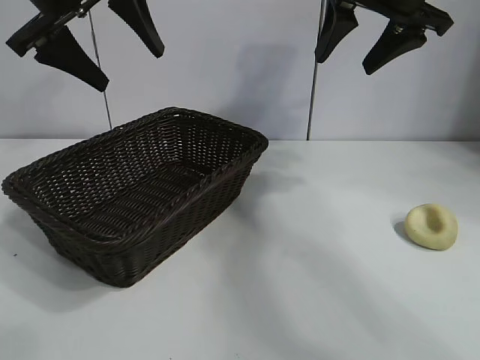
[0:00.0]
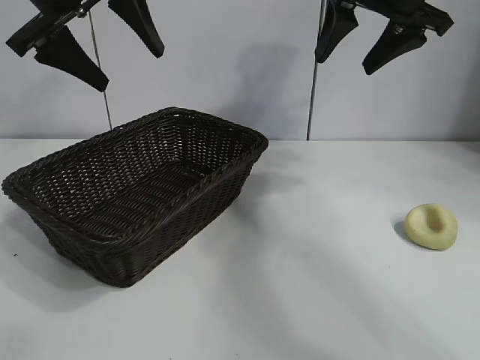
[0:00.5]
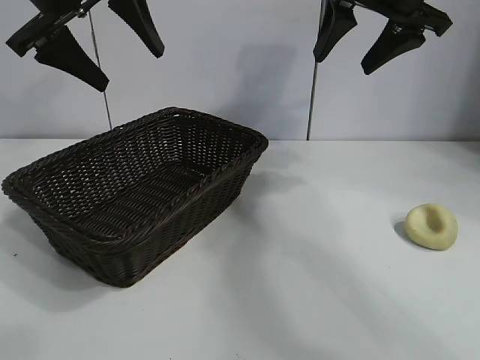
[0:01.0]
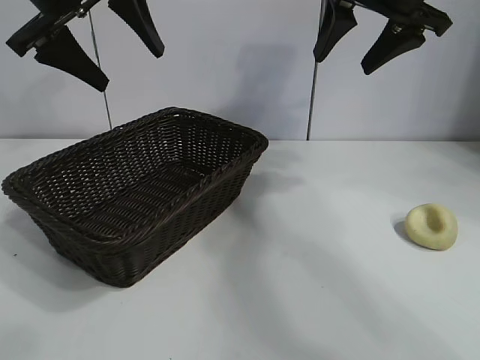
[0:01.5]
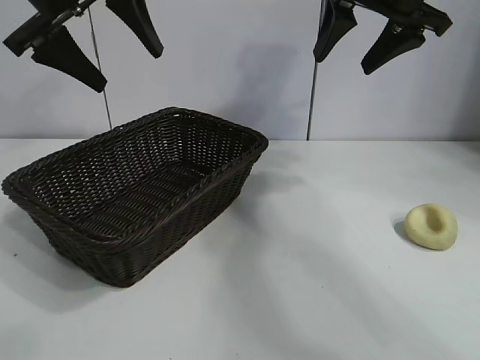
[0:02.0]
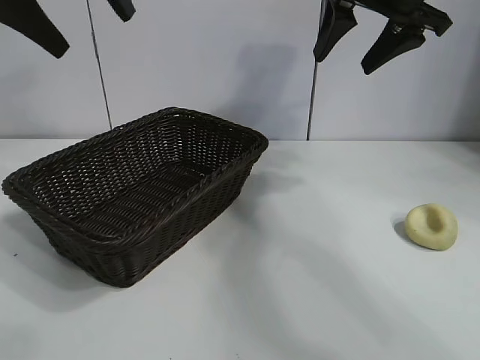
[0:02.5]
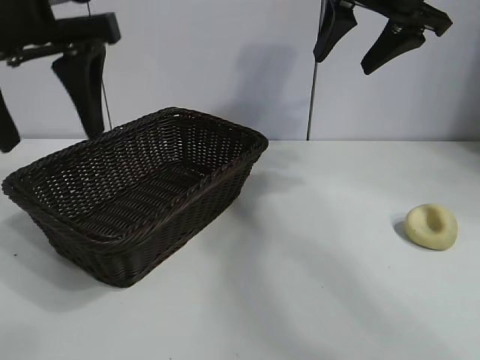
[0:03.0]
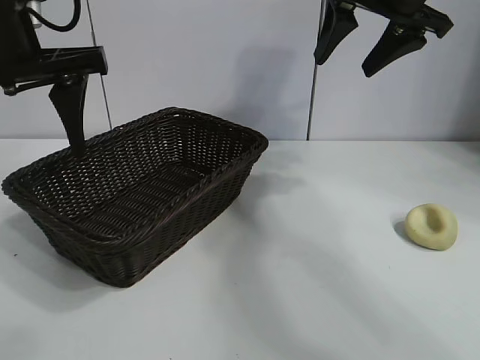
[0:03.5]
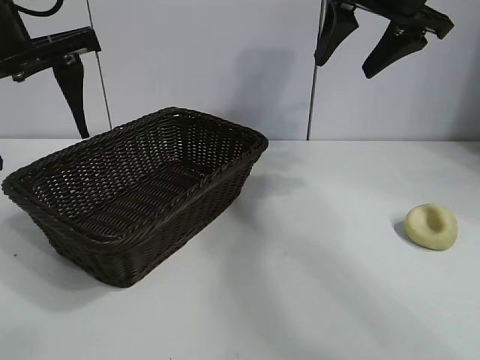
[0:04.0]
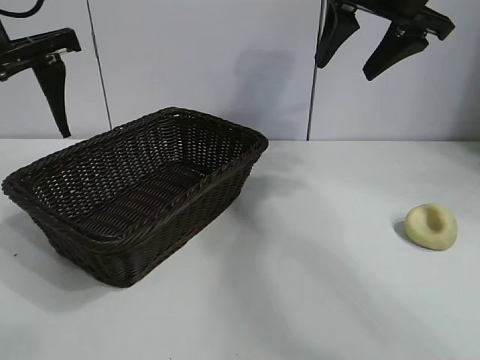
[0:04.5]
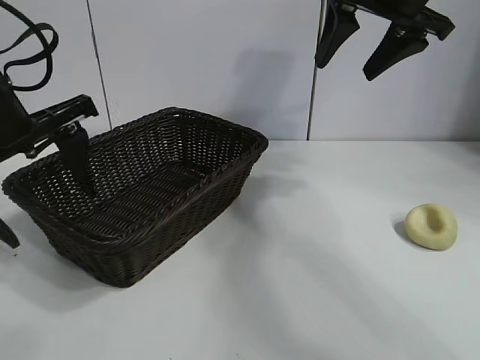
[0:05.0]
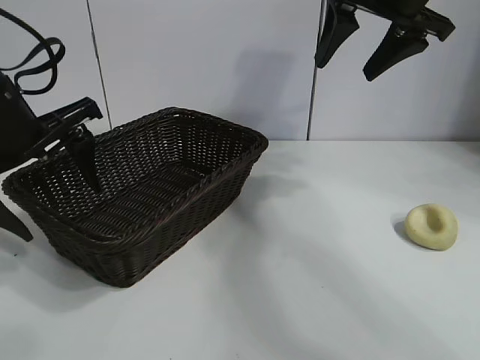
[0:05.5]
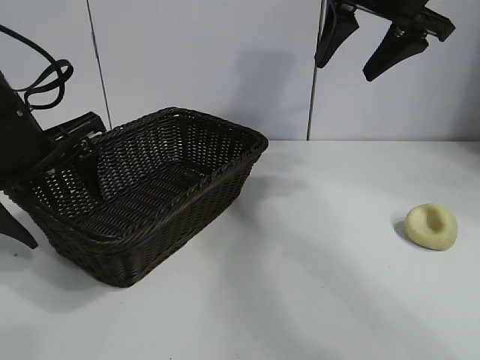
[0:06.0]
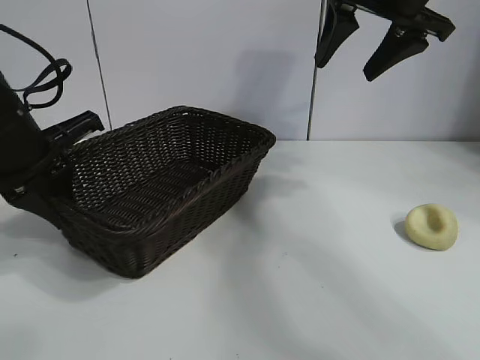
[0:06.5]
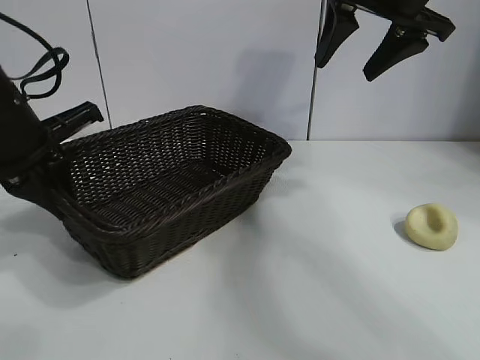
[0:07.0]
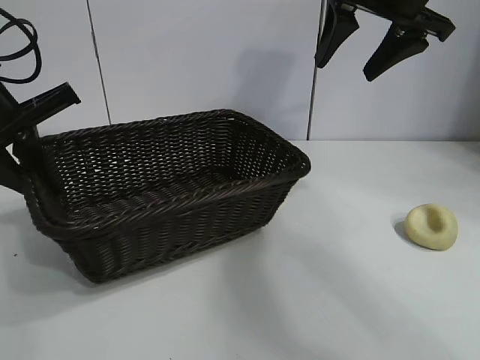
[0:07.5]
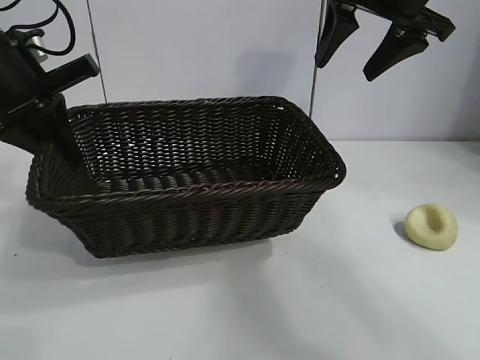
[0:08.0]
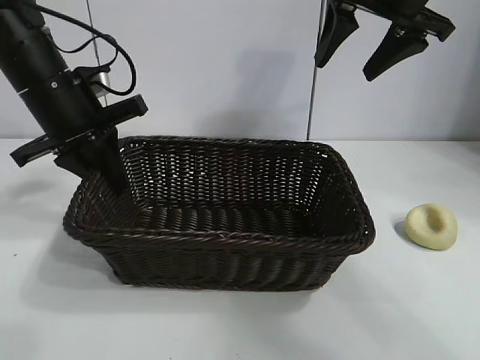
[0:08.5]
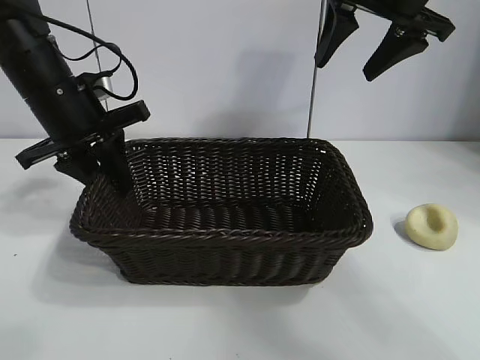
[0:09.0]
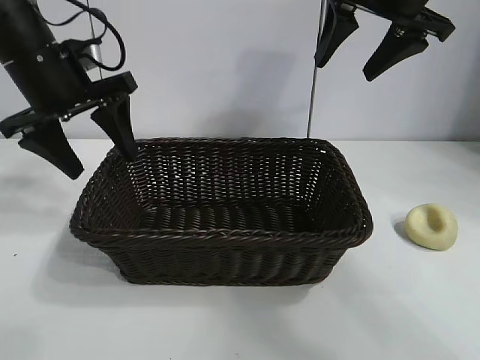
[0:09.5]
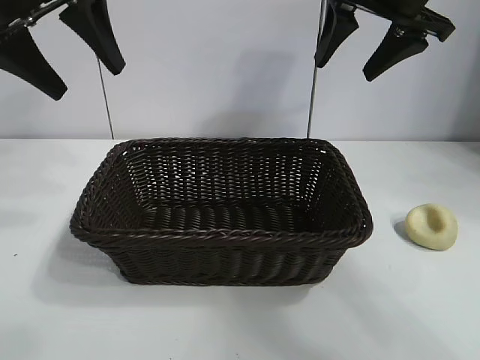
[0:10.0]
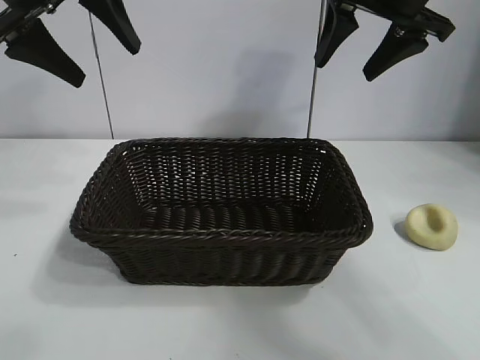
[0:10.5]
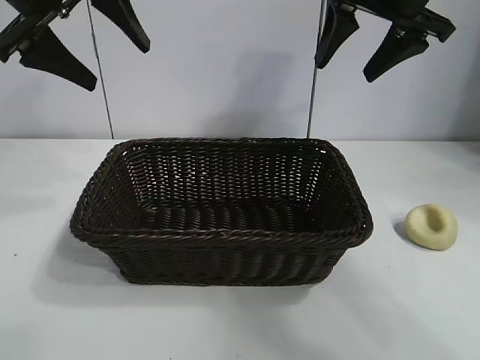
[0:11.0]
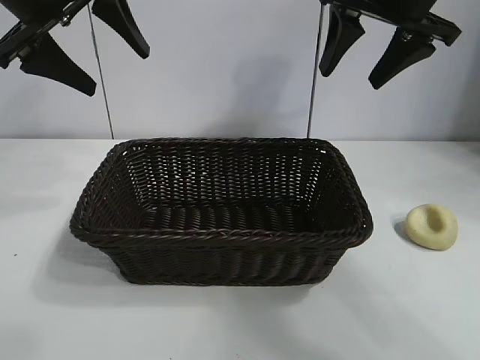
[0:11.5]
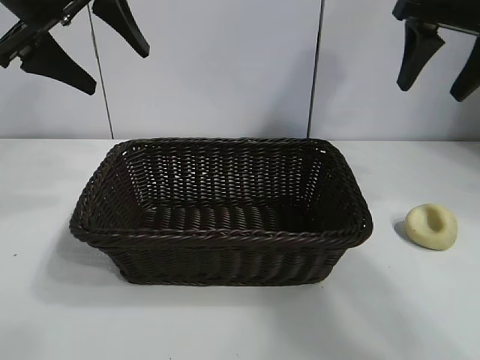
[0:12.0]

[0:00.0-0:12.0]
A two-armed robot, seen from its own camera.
Task of the whole recording: pick up the egg yolk pastry and put it into the basket.
Step, 0:02.0 to 0:06.5: Grasp the basket with left gripper.
Step, 0:07.0 to 0:09.0: Place the basket in the center of view with left gripper.

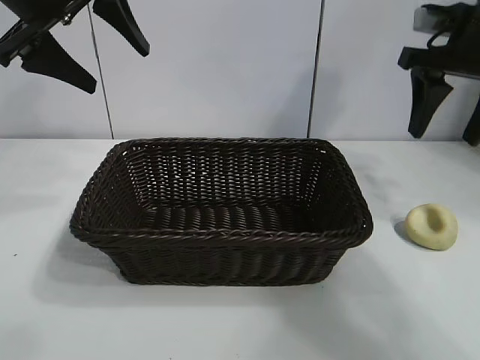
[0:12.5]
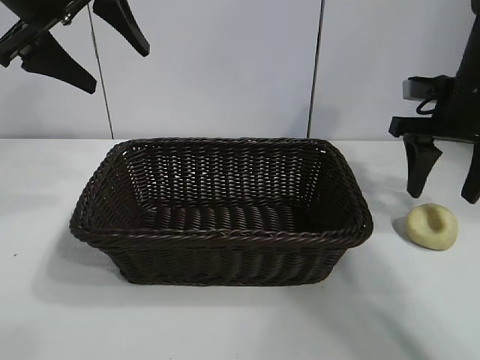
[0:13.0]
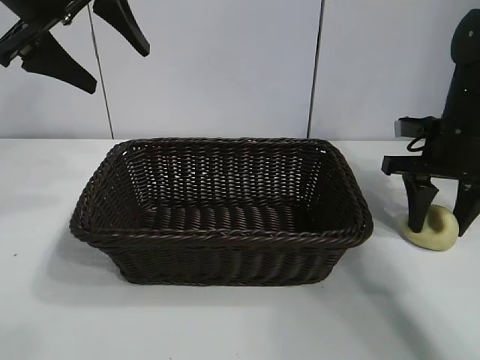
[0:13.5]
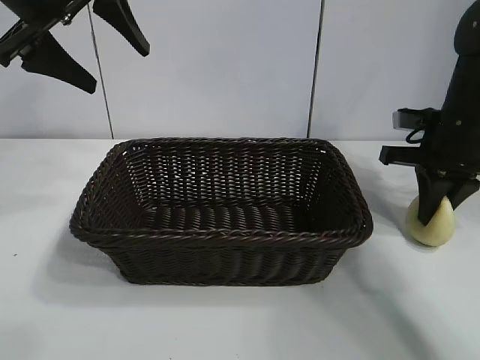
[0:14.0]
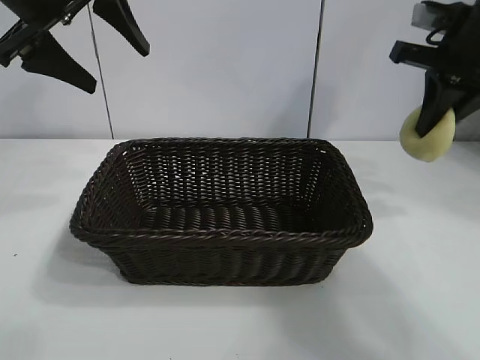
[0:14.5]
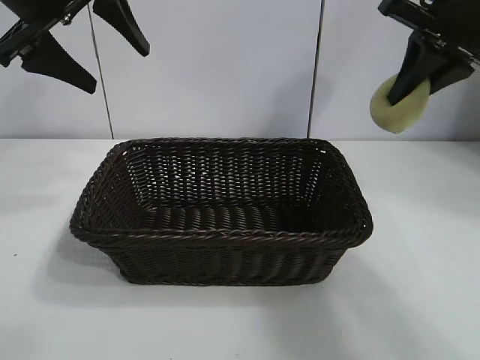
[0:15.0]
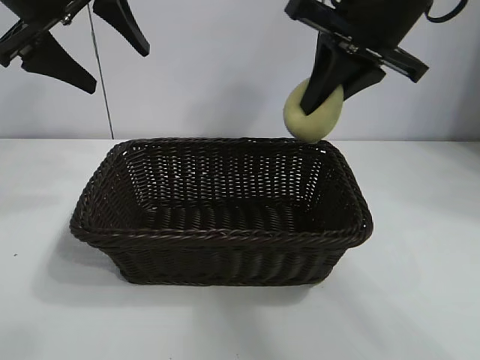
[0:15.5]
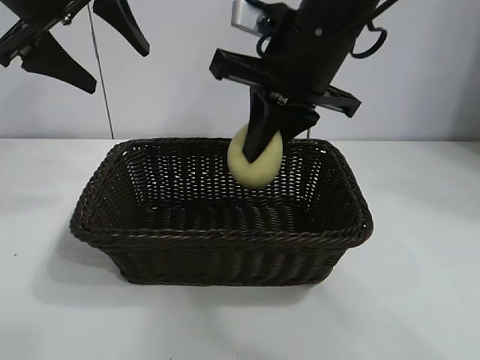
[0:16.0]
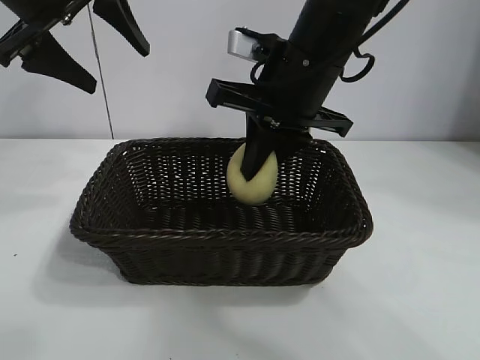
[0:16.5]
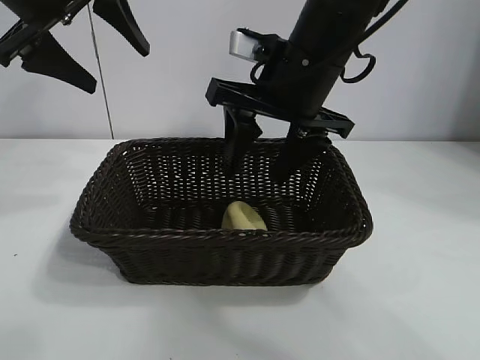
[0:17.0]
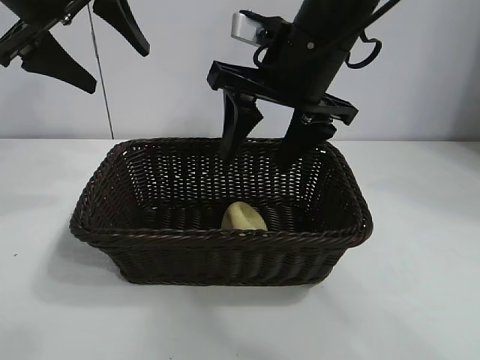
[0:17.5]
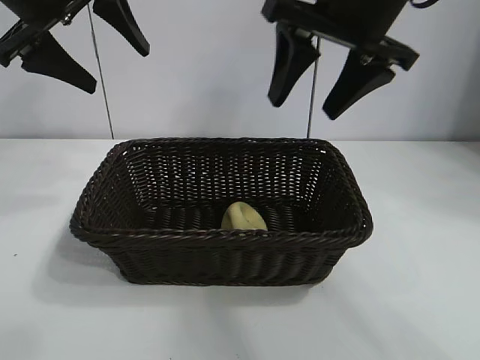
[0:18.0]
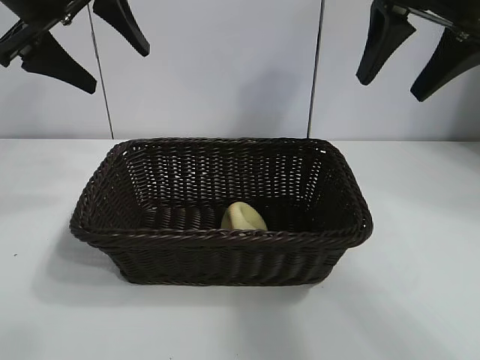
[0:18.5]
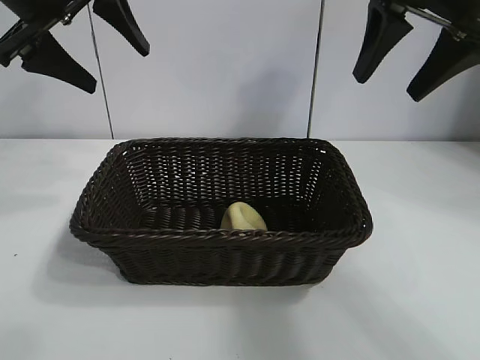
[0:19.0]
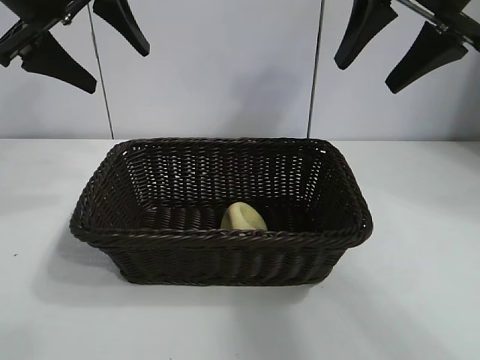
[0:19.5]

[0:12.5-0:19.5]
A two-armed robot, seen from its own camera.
Task of the whole recording: pick up the egg yolk pastry and put it into the basket.
Step, 0:14.0 to 0:17.0: Place the egg yolk pastry in the basket with right gripper.

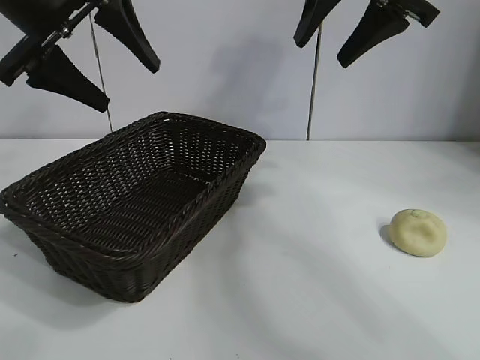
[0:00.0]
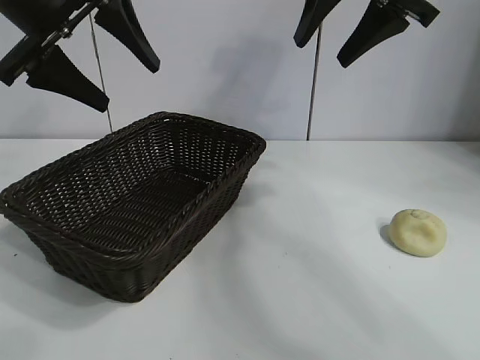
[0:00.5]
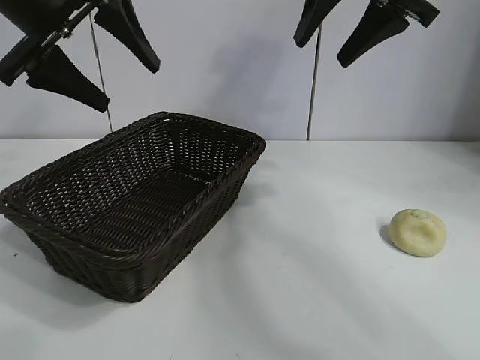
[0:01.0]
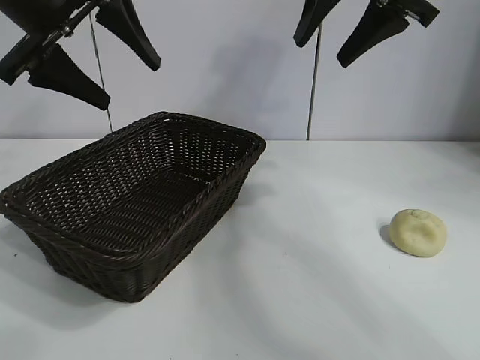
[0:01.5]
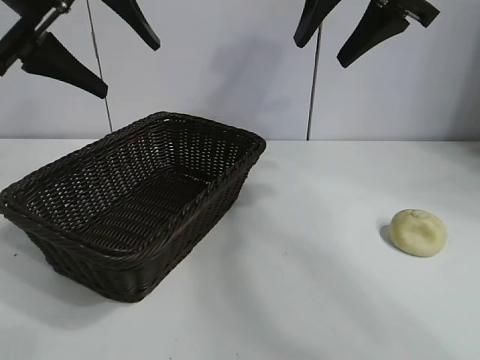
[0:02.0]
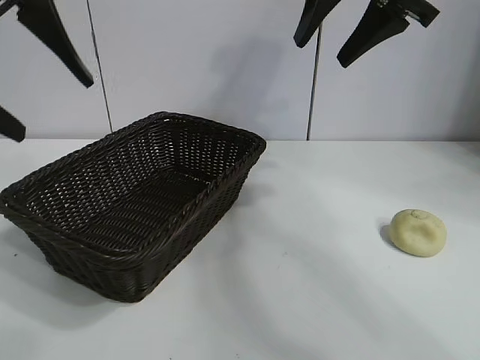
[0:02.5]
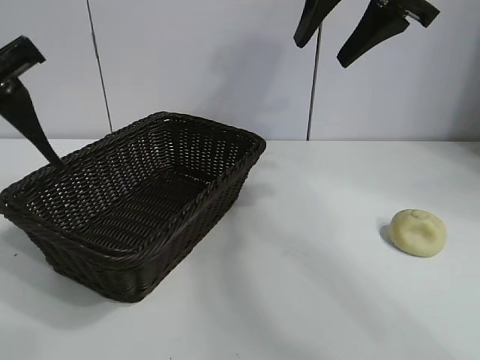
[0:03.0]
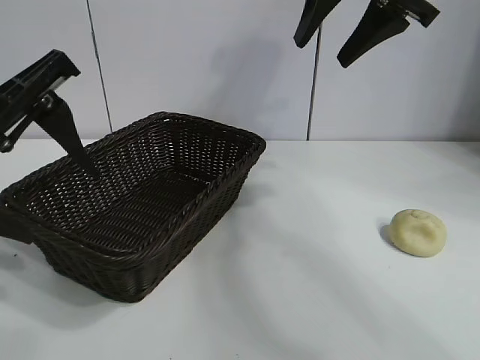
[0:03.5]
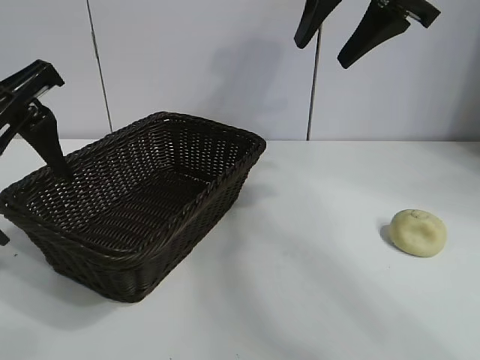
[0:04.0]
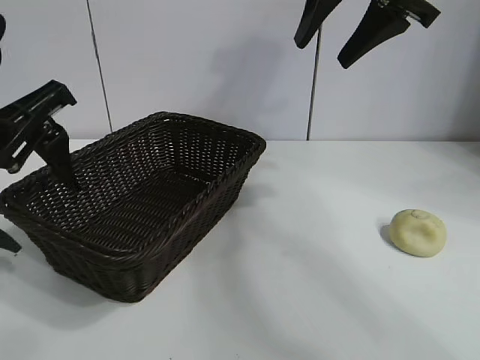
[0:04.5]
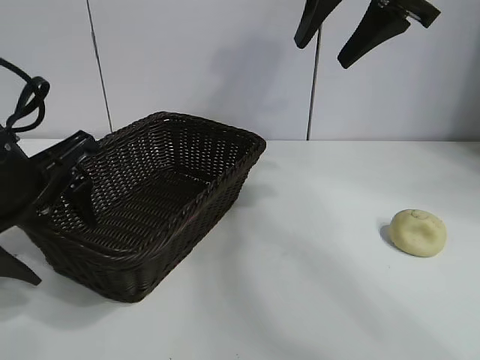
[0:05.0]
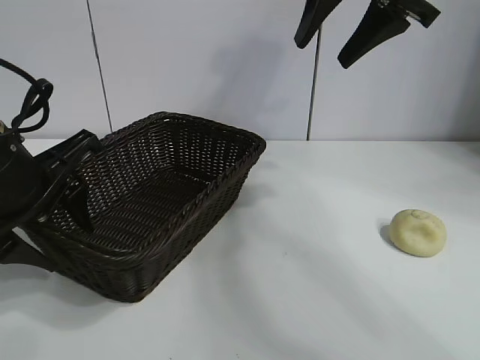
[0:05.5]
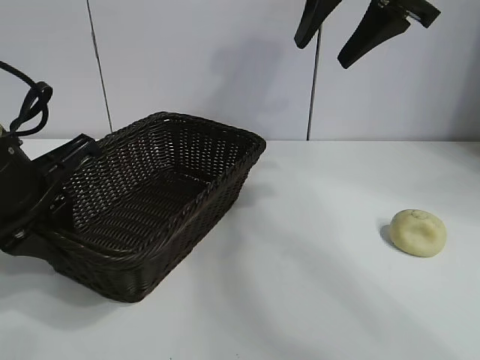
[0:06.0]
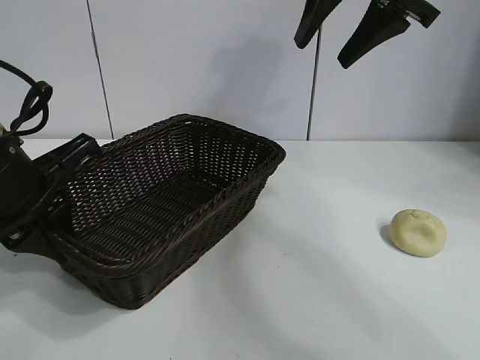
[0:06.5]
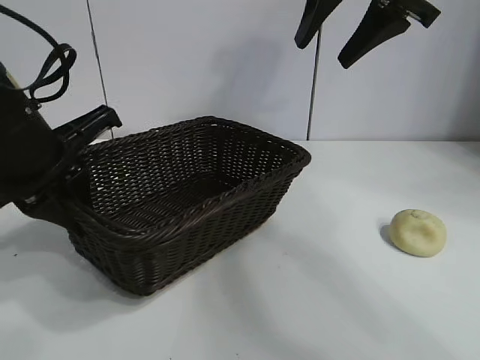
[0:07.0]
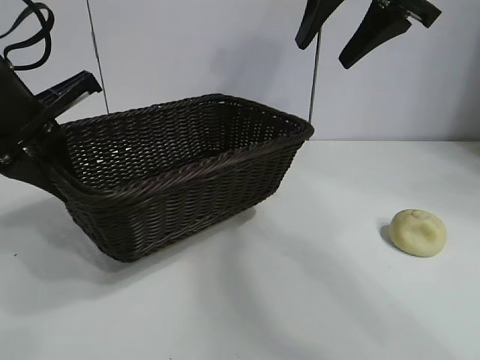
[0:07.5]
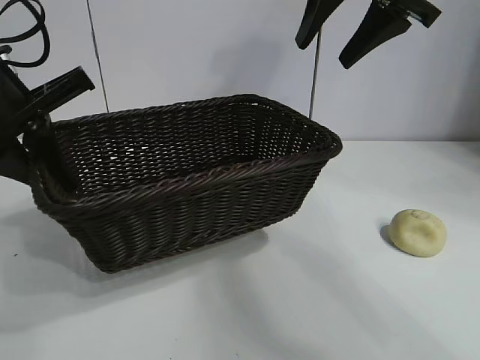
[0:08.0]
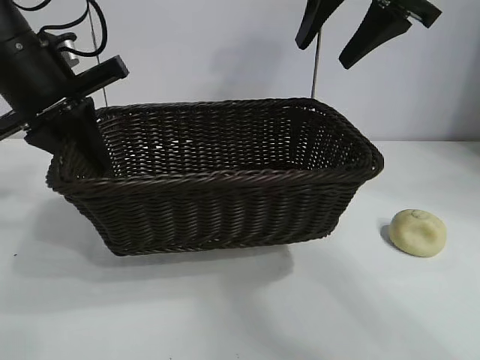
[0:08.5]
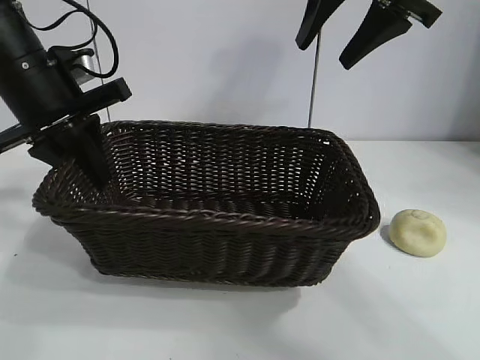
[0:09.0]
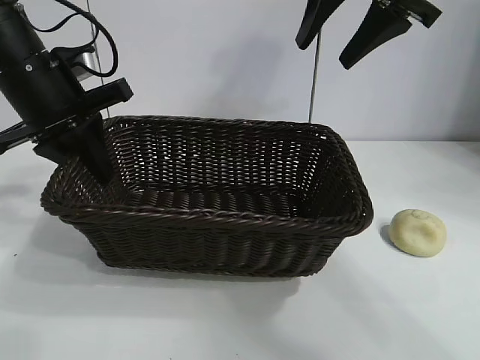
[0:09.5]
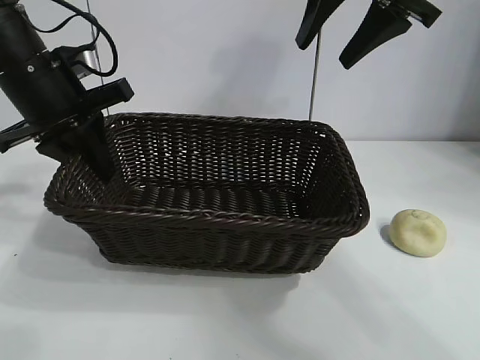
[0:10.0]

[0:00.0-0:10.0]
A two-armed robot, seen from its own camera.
Task of the whole recording: pick up the egg yolk pastry and put it into the basket.
Step, 0:01.5 to 0:06.0: Grasp the basket with left gripper.
